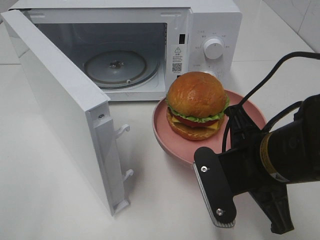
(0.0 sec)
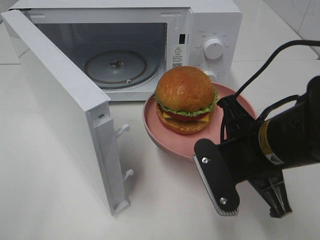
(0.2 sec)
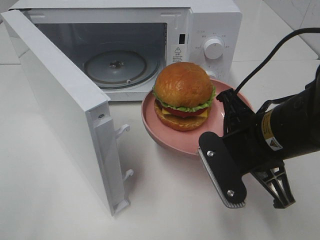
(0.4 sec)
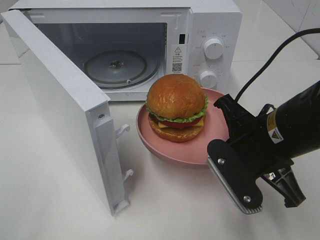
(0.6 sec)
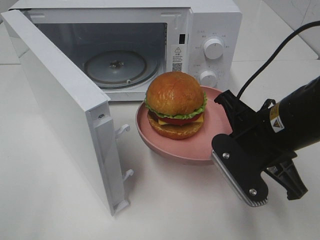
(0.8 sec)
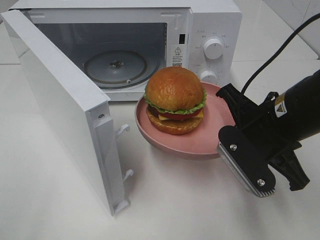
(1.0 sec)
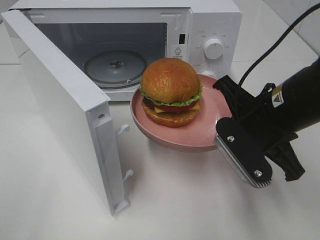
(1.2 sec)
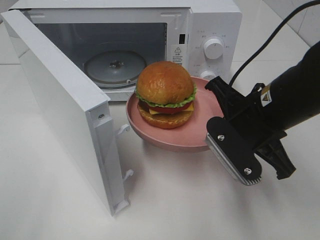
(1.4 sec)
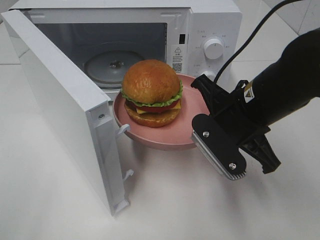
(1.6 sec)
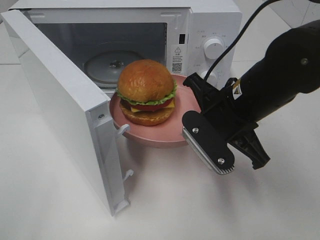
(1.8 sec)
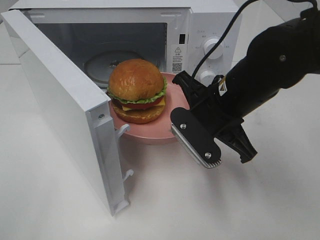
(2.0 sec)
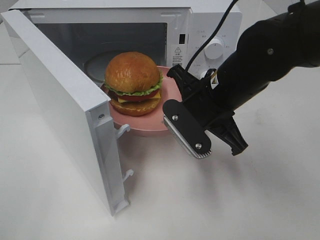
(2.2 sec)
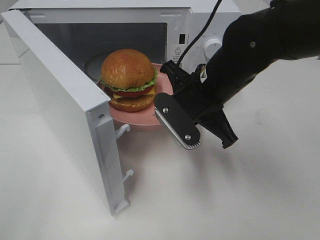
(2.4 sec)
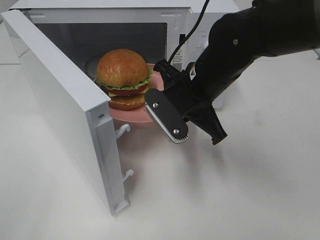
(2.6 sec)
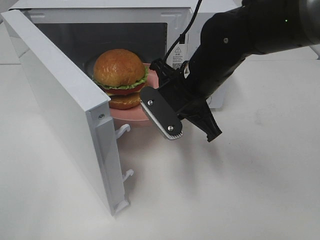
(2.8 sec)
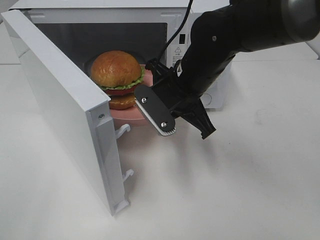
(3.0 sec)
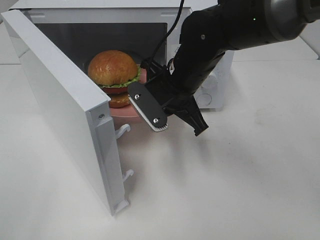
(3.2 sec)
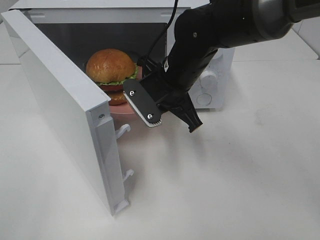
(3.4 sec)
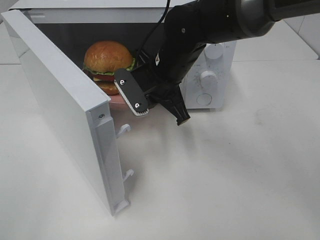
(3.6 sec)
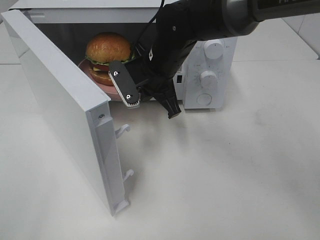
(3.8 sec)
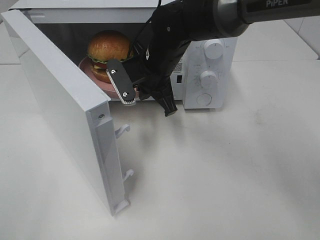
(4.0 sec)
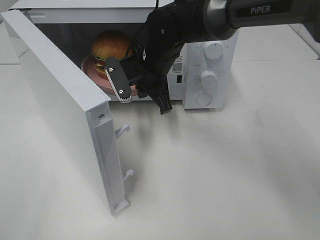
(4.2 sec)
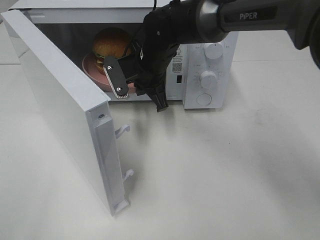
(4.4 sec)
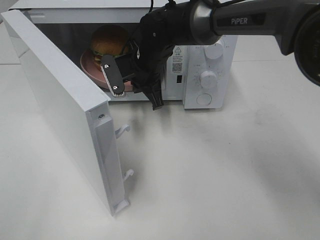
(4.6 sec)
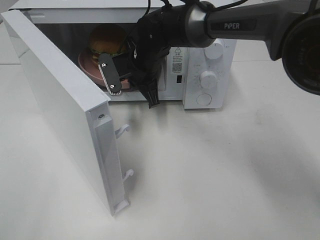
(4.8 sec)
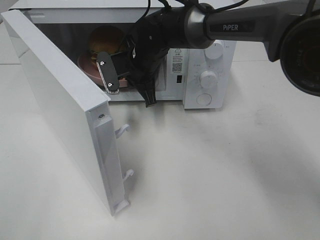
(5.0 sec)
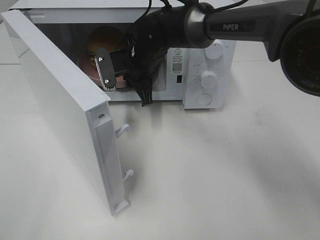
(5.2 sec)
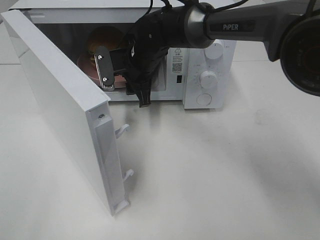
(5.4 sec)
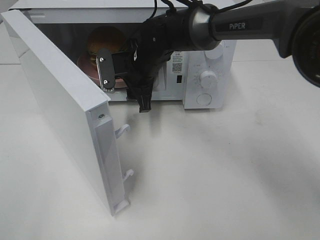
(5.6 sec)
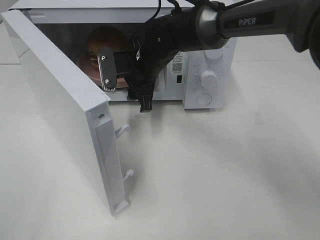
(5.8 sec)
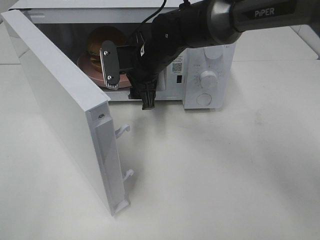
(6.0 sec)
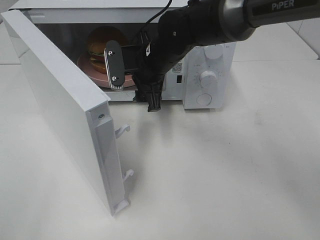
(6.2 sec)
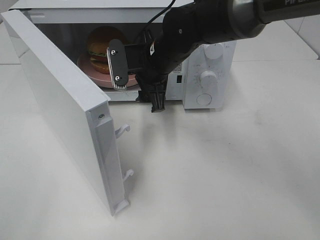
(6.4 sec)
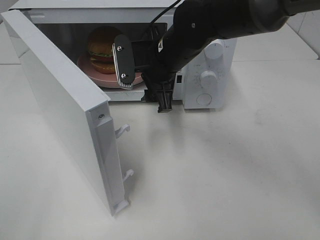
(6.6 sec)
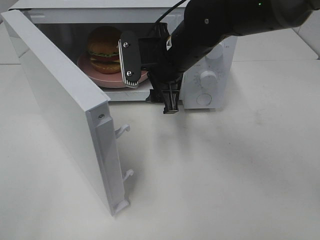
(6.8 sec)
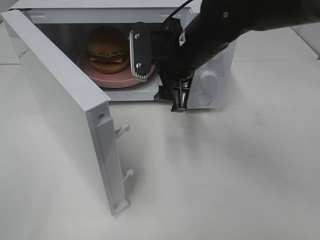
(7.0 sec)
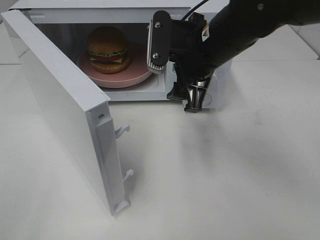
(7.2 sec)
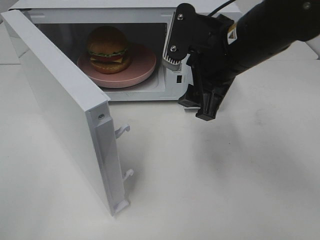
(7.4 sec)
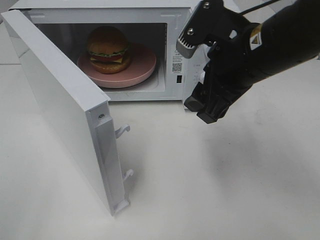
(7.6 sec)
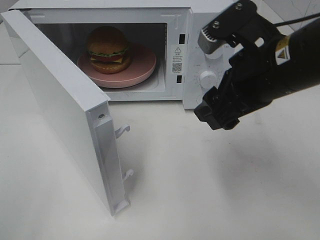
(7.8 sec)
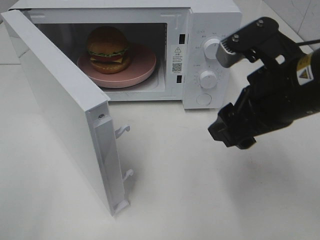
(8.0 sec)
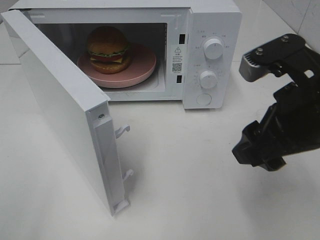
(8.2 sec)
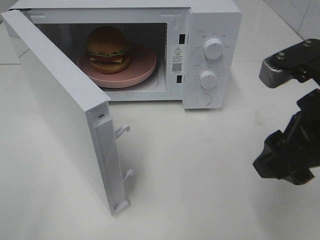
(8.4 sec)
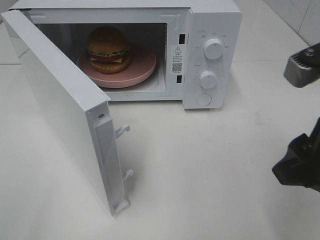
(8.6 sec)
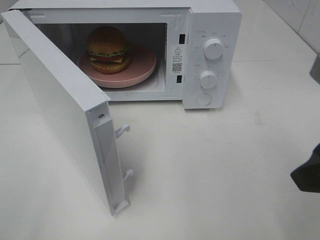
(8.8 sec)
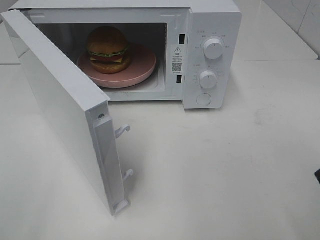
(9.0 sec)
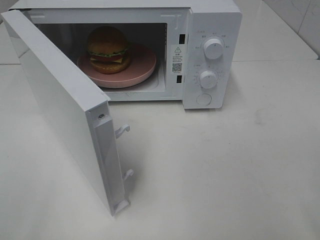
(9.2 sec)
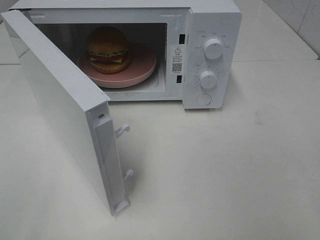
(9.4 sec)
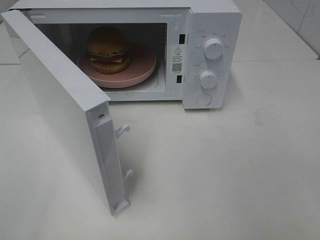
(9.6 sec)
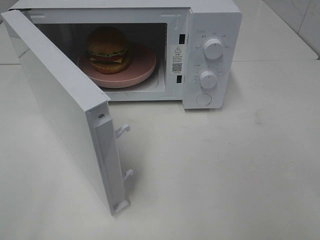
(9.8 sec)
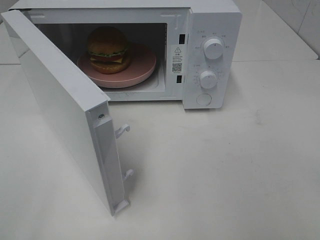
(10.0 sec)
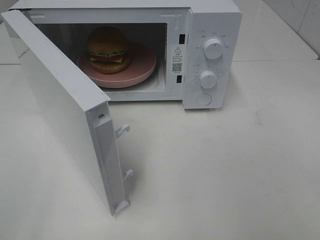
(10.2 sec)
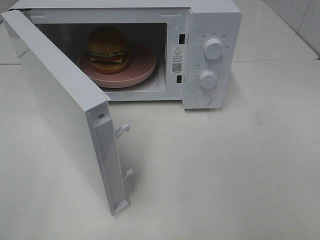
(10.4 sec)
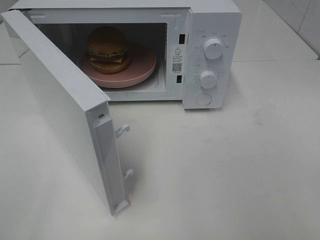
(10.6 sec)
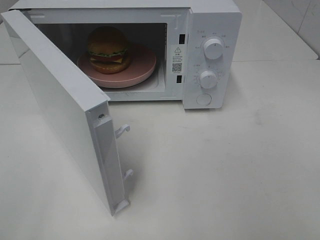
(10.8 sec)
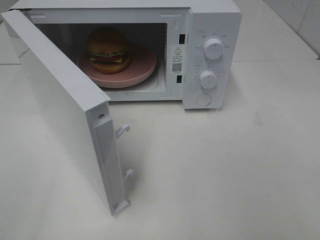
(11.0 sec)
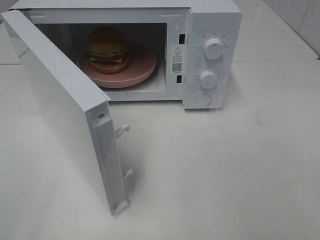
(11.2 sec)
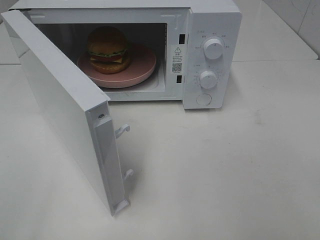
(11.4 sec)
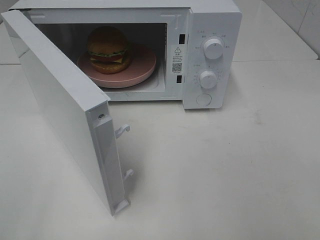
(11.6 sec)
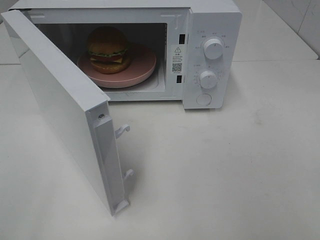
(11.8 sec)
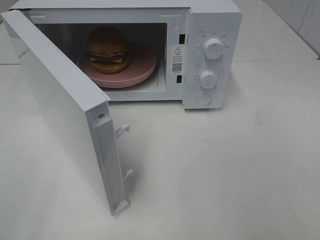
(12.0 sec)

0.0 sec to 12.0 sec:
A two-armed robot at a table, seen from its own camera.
Task of the whole recording: Heat the burger.
Step, 0.0 sec to 5.2 sec: Right hand: place the plate in the microwave.
0.0 sec to 1.6 sec: The right gripper travels forward by approximately 5 cm.
1.6 sec to 3.0 sec: The right gripper is displaced forward and to the left by some 10 cm.
3.0 sec to 4.4 sec: The right gripper shifts roughly 10 cm forward and to the left.
4.4 sec to 6.0 sec: The right gripper opens up.
6.0 sec to 7.6 sec: The right gripper shifts approximately 20 cm backward, to the right and upward.
7.6 sec to 9.0 sec: The right gripper heads backward and to the right, covering about 20 cm.
10.4 sec to 12.0 sec: Both grippers stay about where they are.

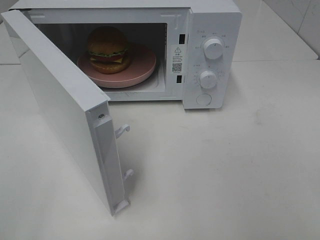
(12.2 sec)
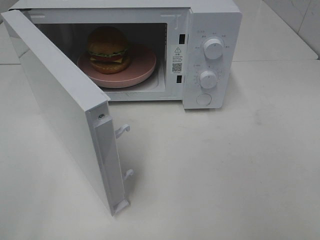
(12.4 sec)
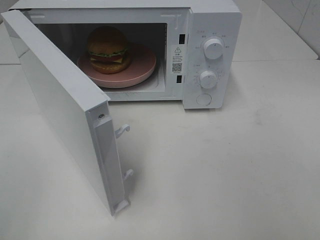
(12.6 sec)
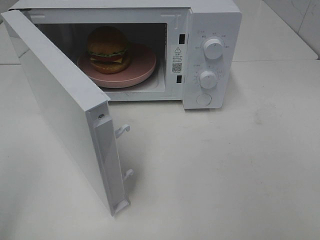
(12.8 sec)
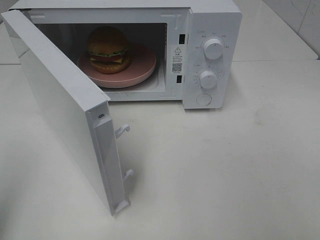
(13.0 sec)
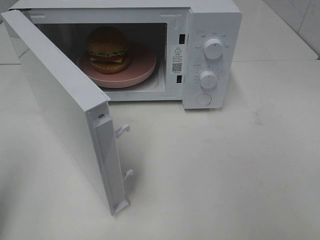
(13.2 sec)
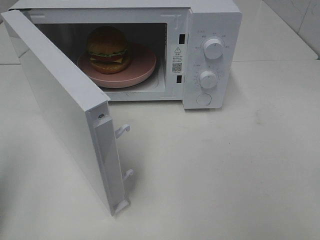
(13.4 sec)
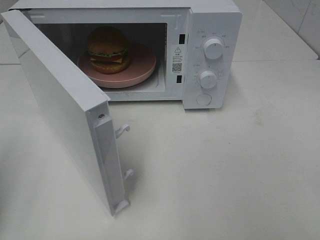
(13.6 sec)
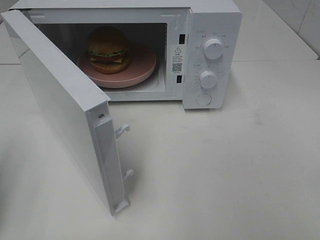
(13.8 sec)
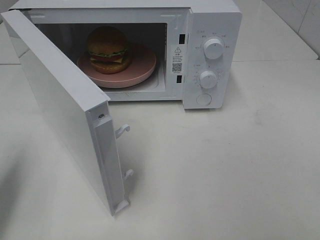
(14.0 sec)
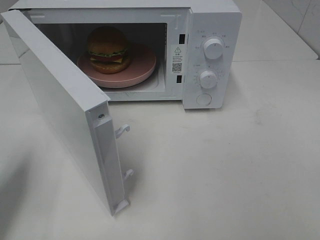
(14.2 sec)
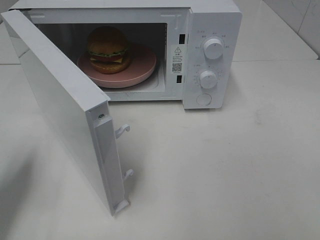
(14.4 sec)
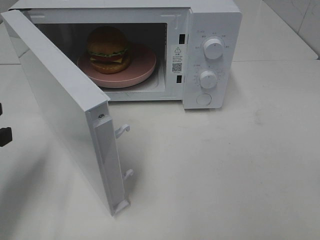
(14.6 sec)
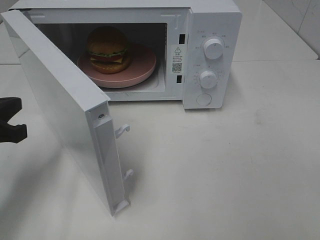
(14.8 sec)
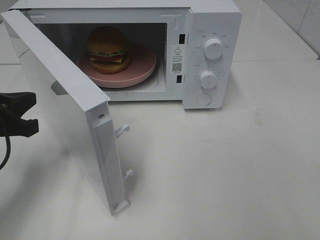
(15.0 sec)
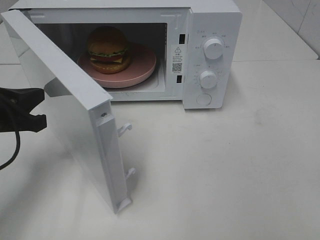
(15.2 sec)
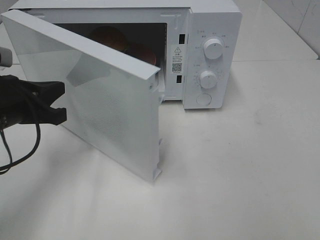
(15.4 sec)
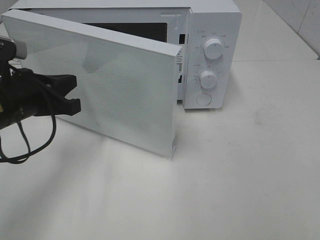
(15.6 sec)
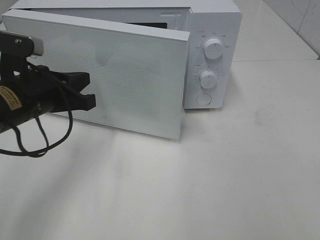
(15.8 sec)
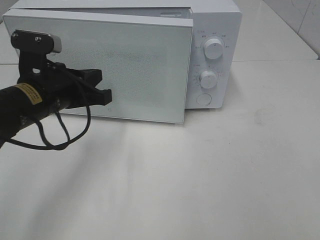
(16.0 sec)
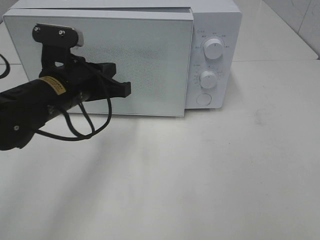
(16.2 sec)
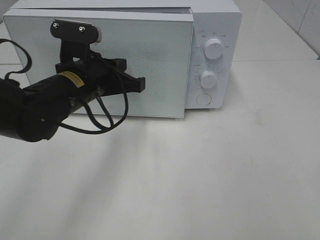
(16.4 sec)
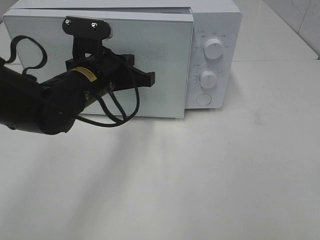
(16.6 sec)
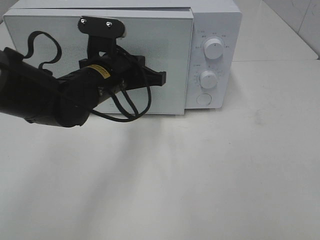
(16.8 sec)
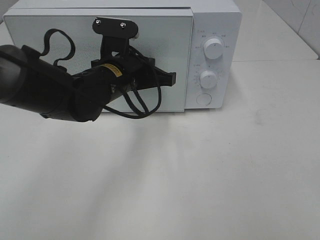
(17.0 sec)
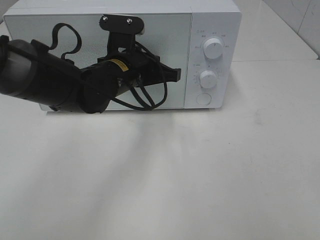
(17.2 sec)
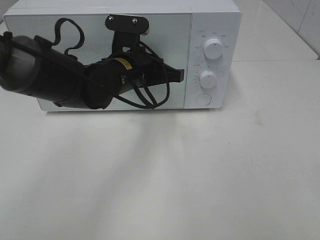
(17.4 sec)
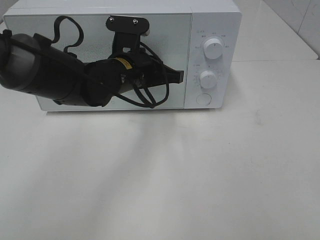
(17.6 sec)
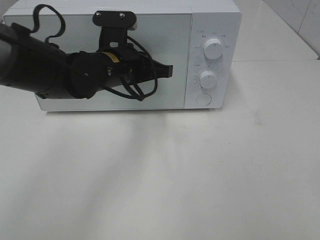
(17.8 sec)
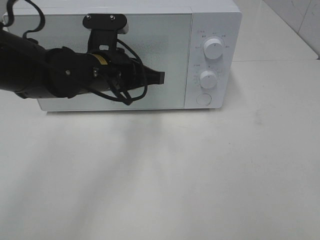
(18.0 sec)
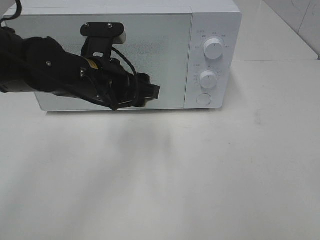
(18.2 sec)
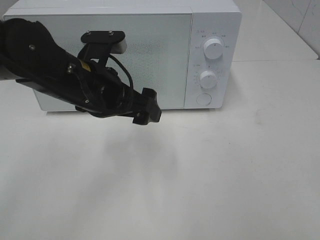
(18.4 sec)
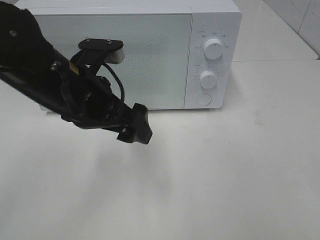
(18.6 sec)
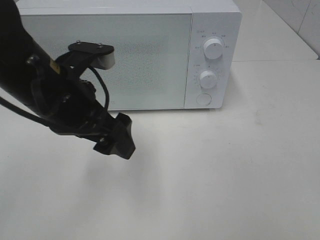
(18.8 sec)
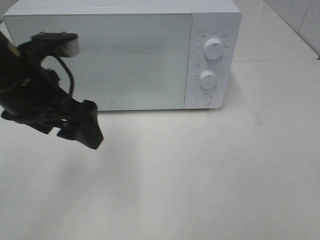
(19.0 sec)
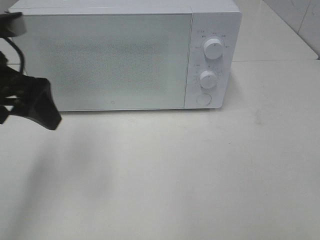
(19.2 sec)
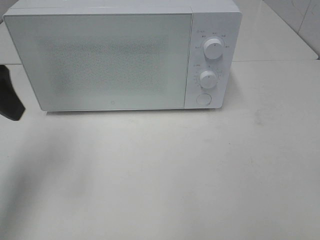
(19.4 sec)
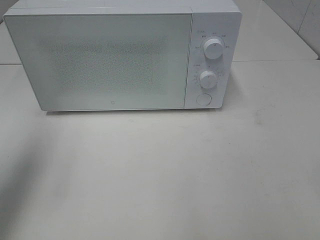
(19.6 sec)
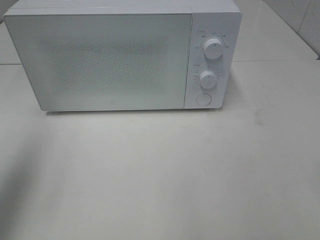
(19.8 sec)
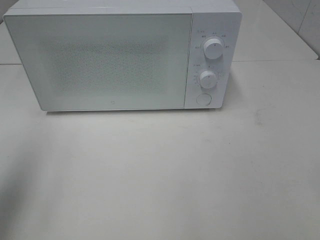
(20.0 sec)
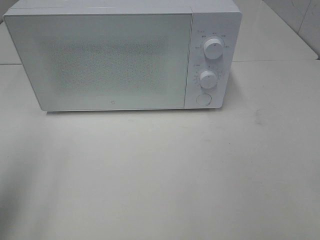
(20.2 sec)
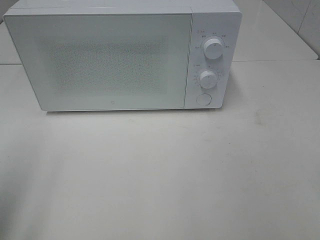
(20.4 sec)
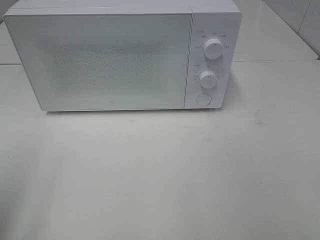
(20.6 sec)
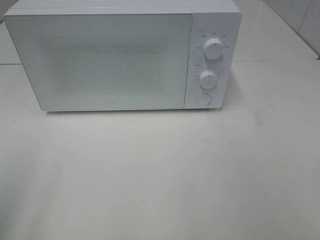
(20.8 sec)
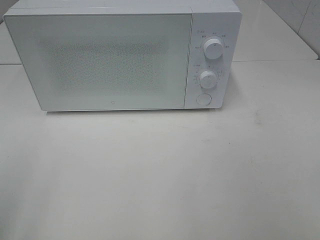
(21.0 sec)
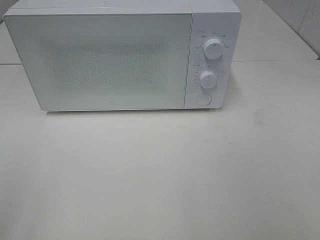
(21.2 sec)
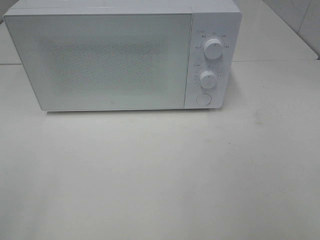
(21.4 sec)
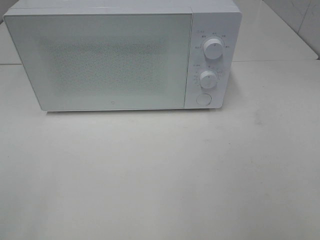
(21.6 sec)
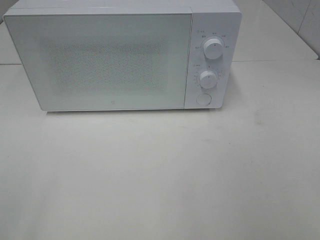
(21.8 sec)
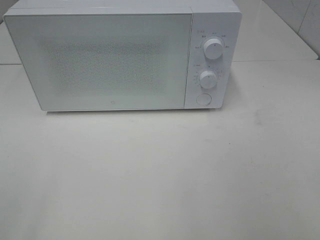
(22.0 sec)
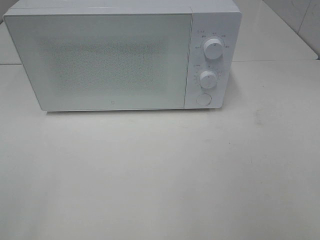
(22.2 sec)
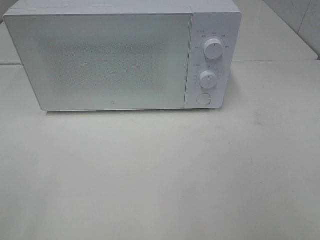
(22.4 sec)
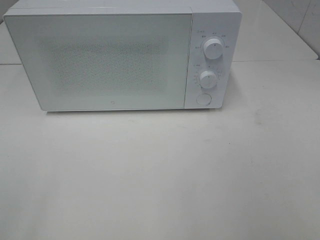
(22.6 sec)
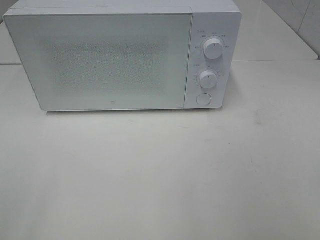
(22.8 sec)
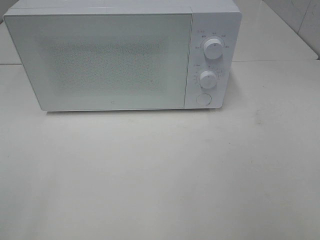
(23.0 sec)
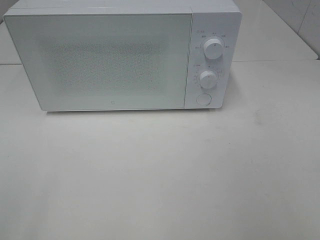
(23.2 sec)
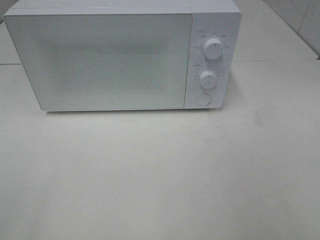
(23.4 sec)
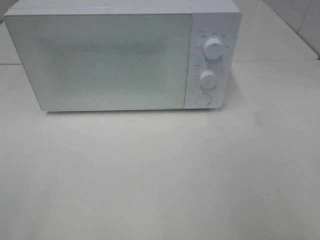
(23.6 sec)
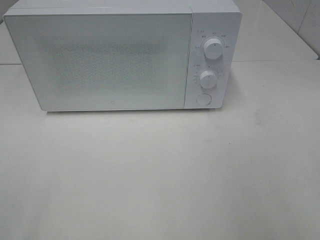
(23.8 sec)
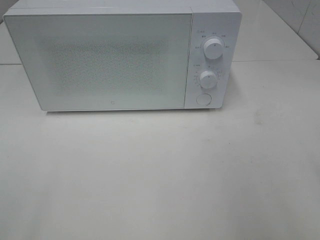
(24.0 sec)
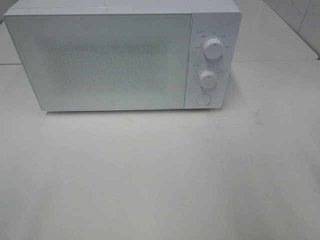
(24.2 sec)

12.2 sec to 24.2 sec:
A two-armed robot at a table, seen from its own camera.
Task of the whole recording: Heat the burger.
Step, 12.2 sec to 17.8 sec: Left hand: close the microwave door.
12.2 sec to 13.8 sec: The left gripper moves forward, about 15 cm, and closes its fingers.
13.8 sec to 15.2 sec: The left gripper goes about 15 cm forward, to the right and downward.
15.2 sec to 16.6 sec: The left gripper is displaced to the right and forward by about 15 cm.
16.6 sec to 18.2 sec: The left gripper opens up.
18.2 sec to 19.8 sec: The left gripper heads to the left, upward and backward, covering roughly 30 cm.
19.8 sec to 21.2 sec: The left gripper shifts approximately 15 cm backward.
